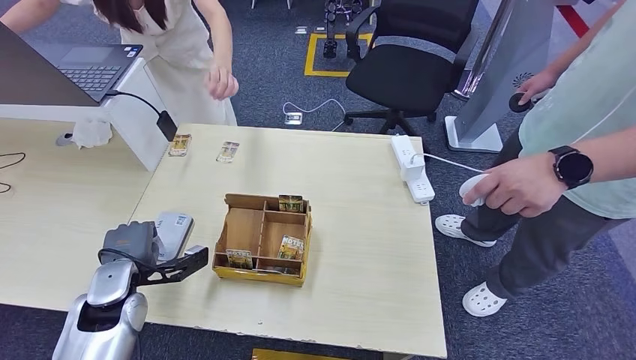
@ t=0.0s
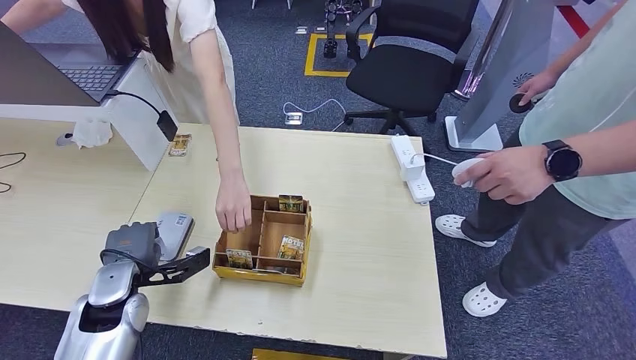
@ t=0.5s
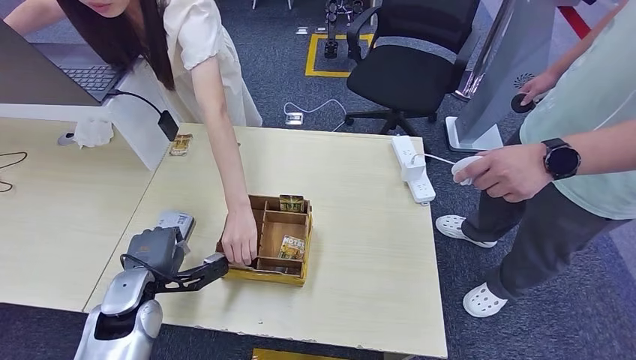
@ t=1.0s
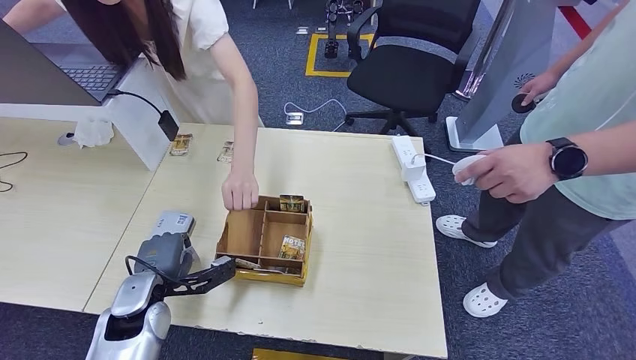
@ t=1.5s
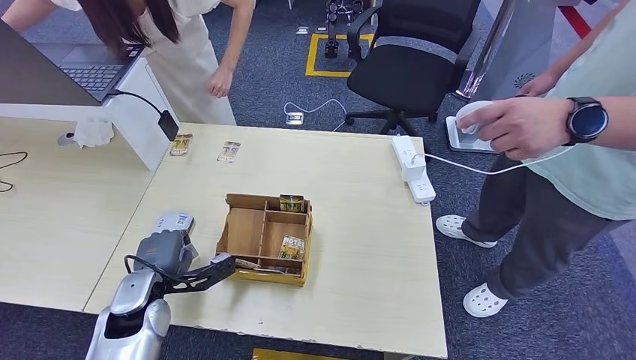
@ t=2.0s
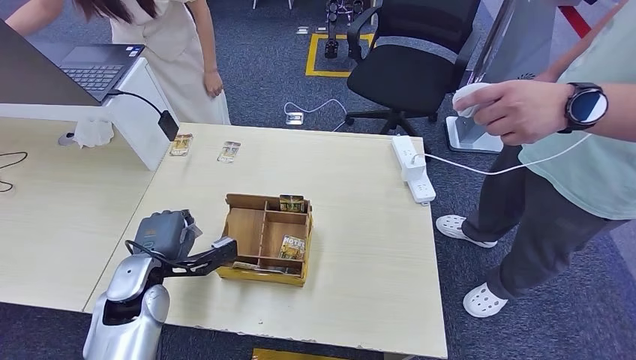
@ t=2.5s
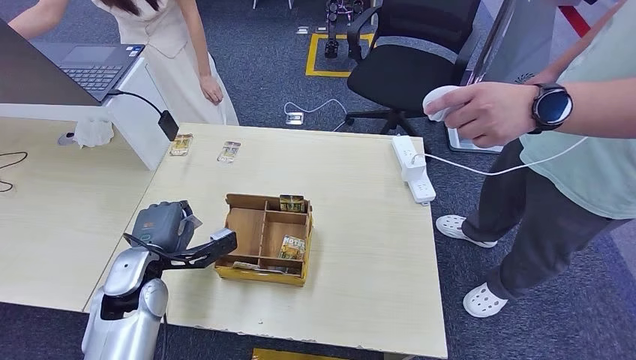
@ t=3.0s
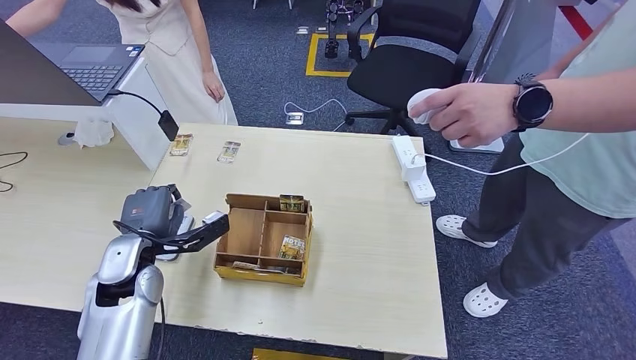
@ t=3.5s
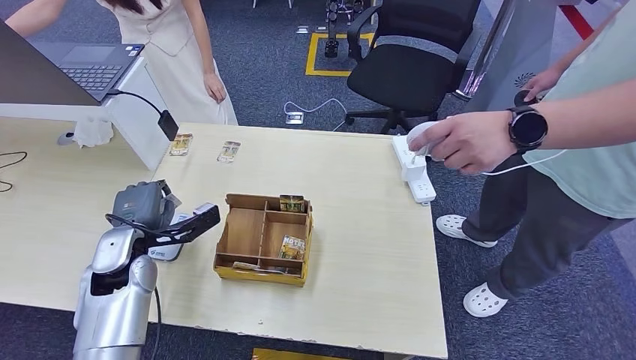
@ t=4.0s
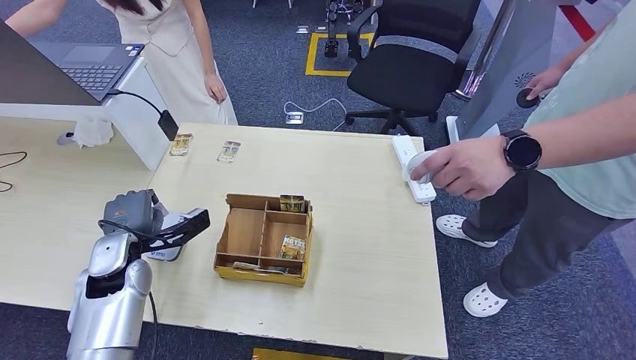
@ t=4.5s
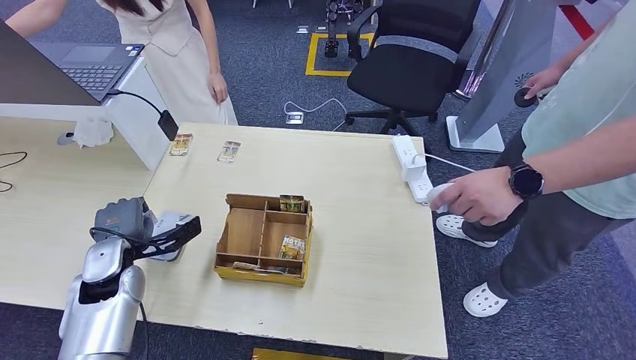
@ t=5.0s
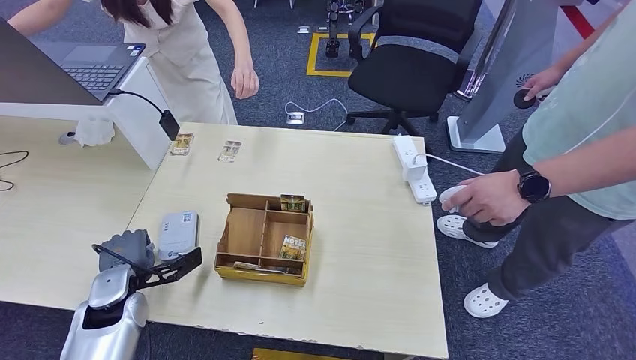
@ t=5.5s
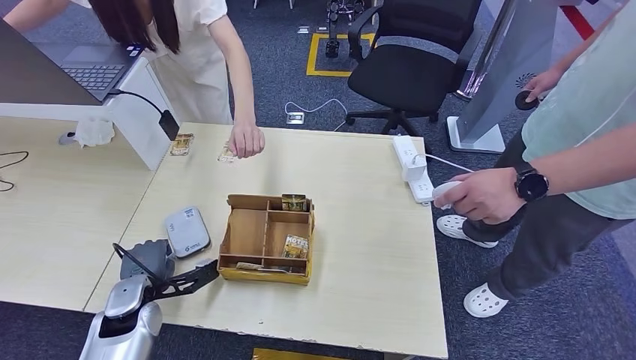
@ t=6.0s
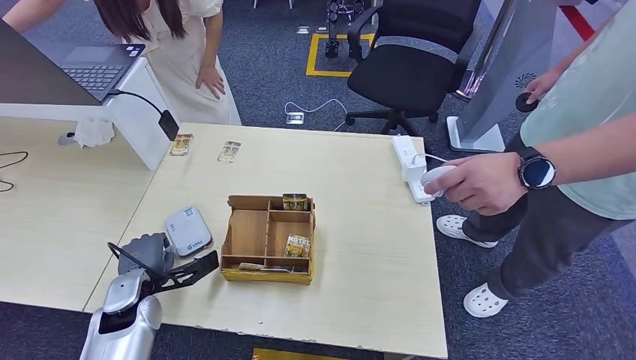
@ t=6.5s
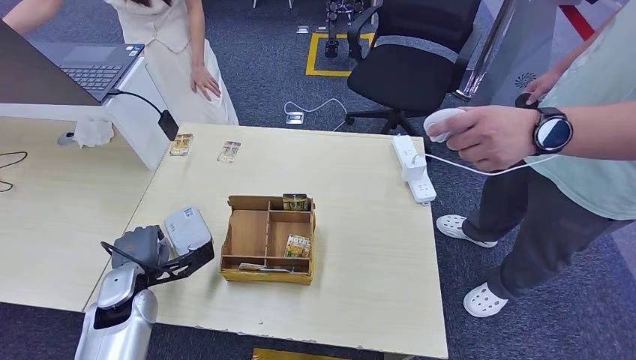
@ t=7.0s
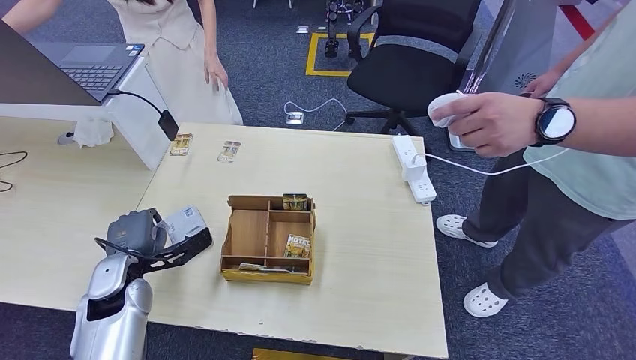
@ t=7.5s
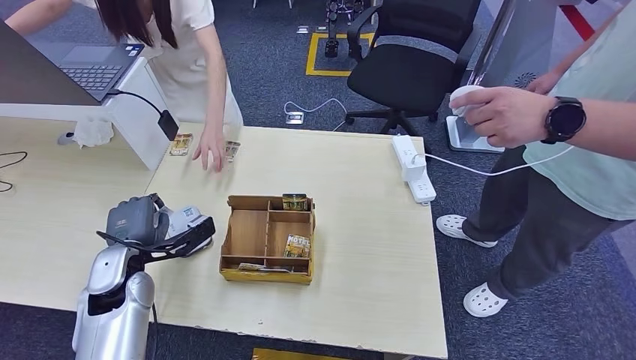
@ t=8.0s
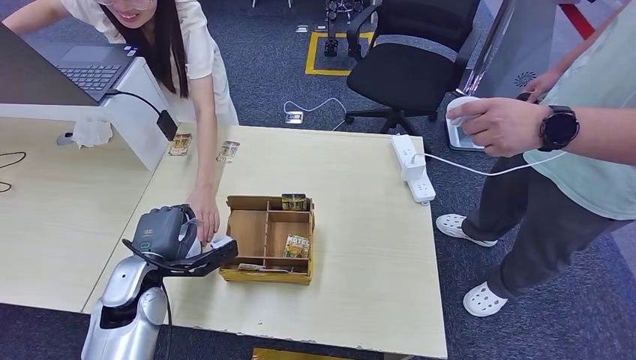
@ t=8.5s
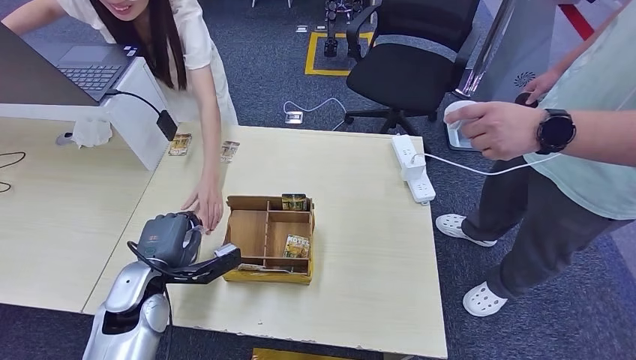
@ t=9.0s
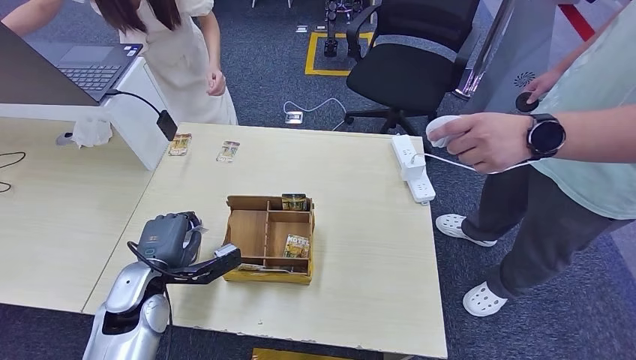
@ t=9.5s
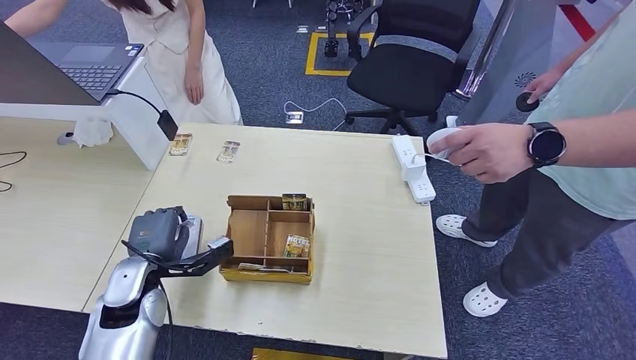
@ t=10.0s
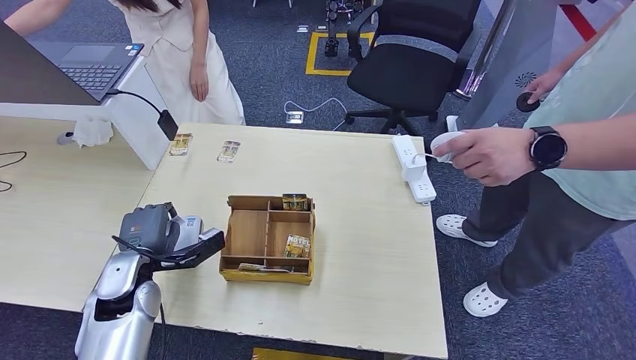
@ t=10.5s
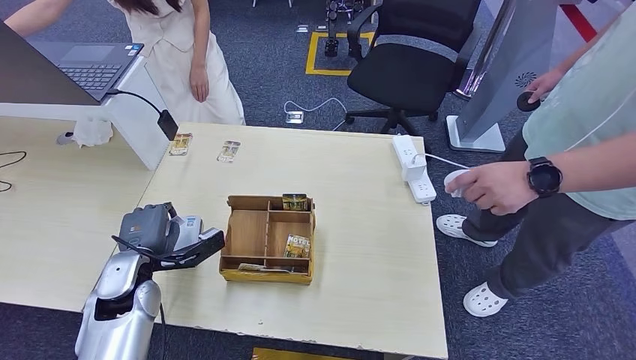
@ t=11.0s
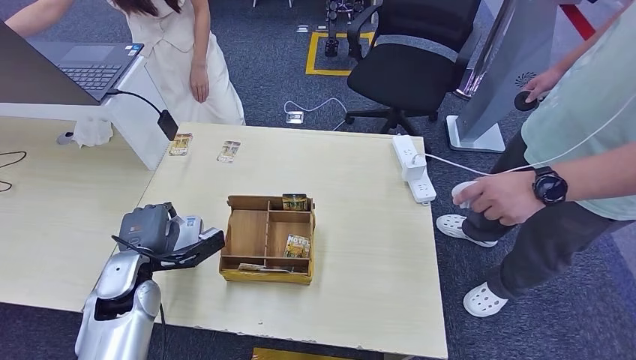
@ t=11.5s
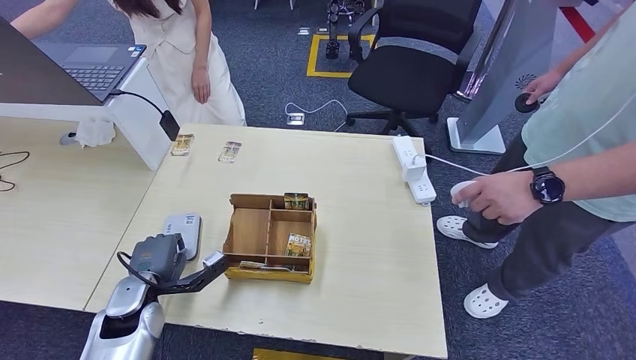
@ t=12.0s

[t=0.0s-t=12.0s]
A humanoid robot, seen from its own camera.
t=0.0s to t=2.0s: The hands make only small movements.
t=2.0s to t=4.0s: The left hand travels upward and forward by approximately 10 cm.
t=6.0s to t=8.0s: The left hand shifts roughly 5 cm upward.
t=8.0s to t=10.0s: The hands make only small movements.
t=10.0s to t=12.0s: The left hand shifts by about 5 cm.

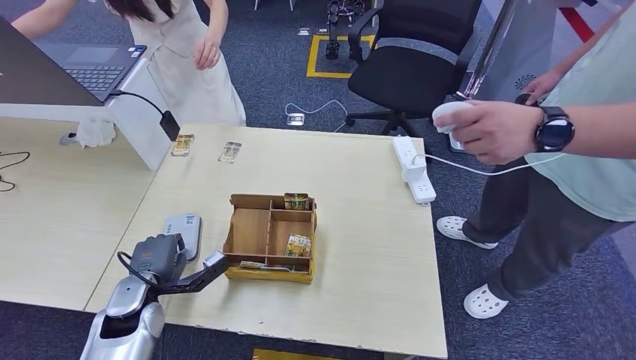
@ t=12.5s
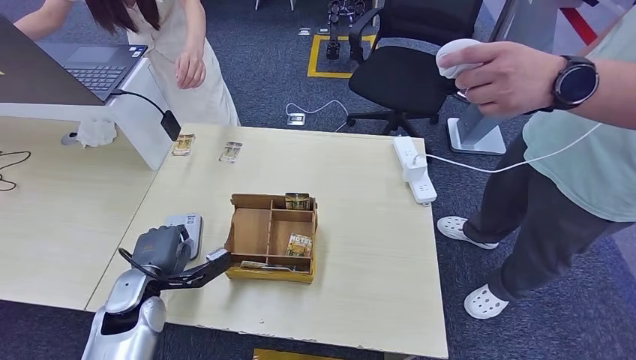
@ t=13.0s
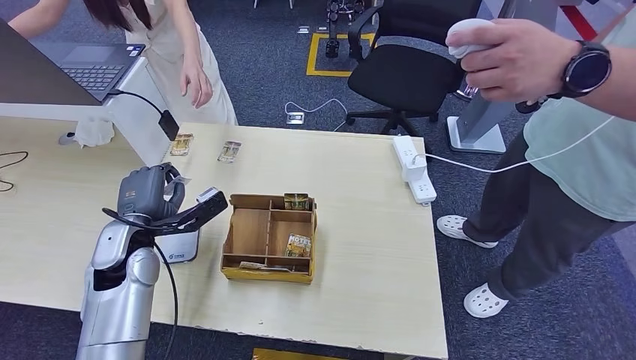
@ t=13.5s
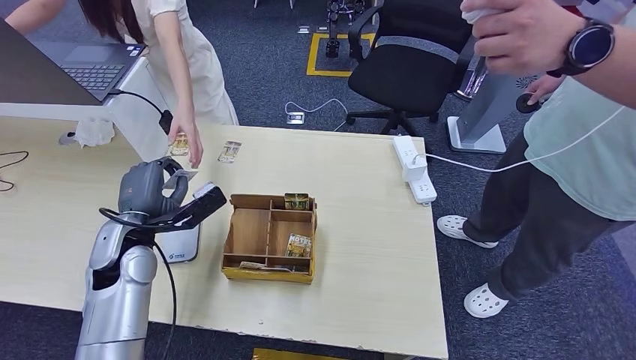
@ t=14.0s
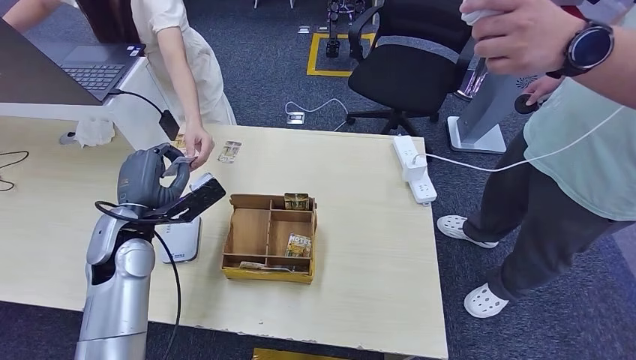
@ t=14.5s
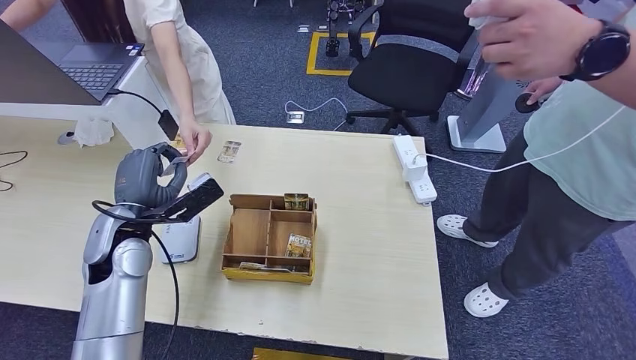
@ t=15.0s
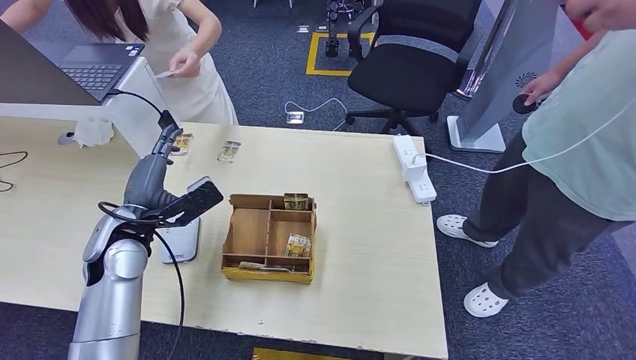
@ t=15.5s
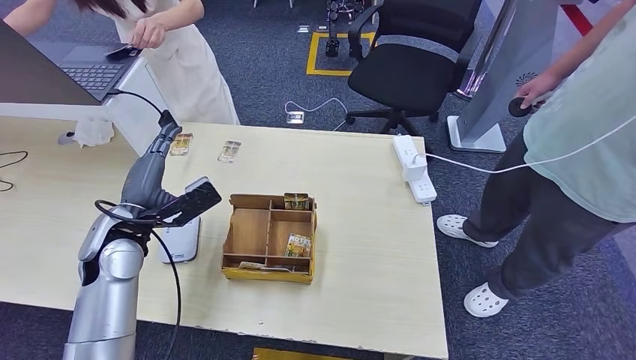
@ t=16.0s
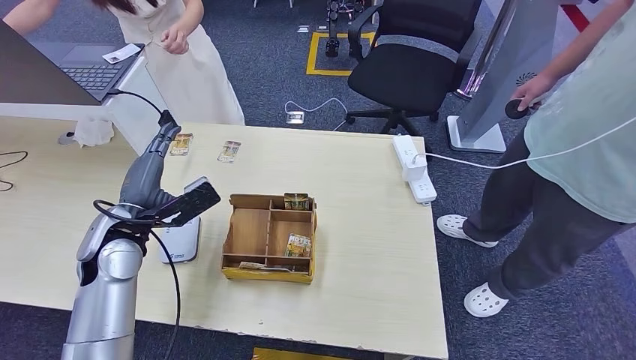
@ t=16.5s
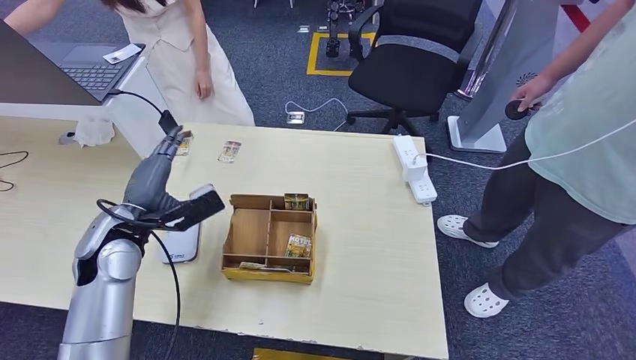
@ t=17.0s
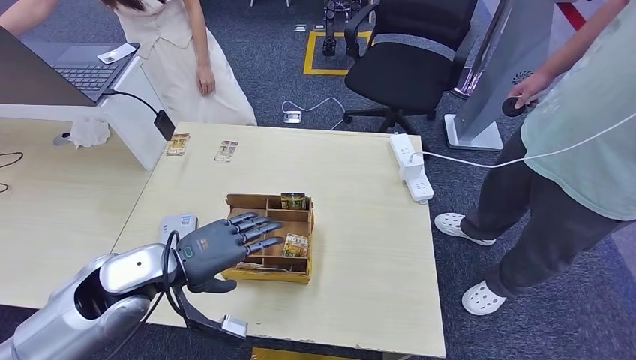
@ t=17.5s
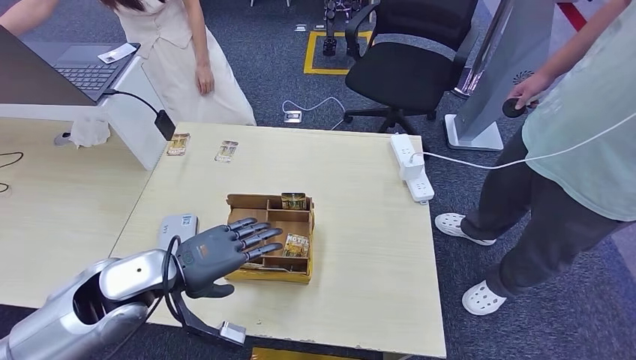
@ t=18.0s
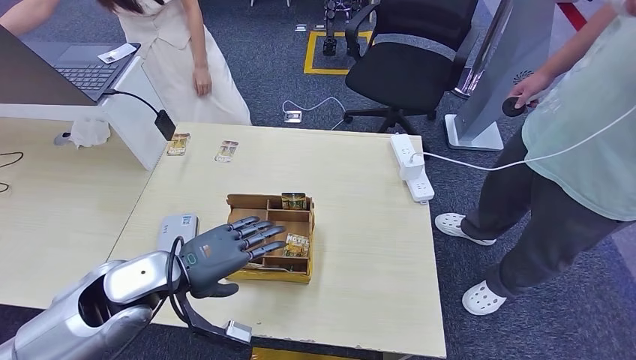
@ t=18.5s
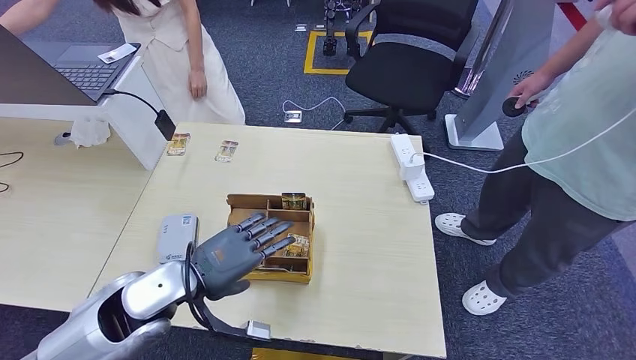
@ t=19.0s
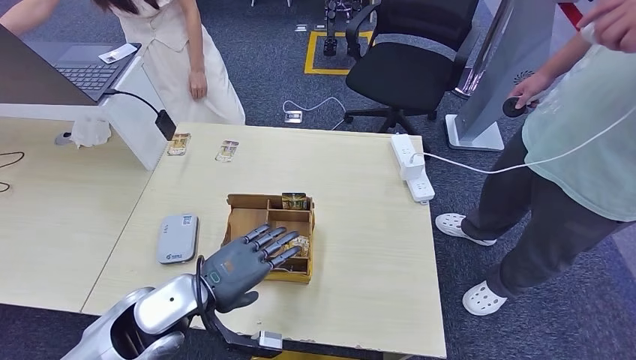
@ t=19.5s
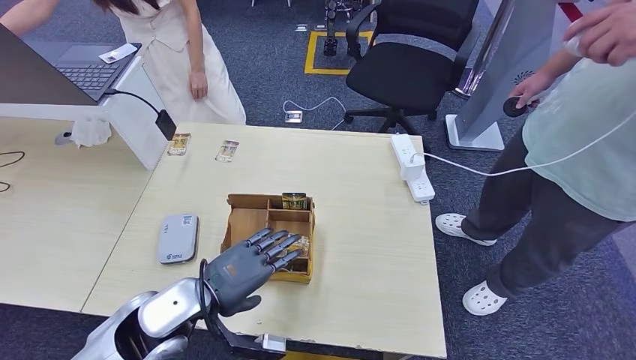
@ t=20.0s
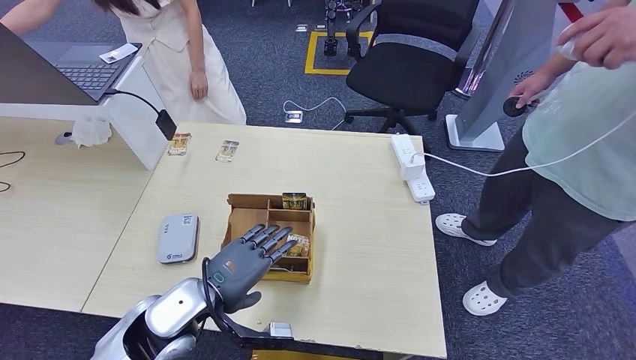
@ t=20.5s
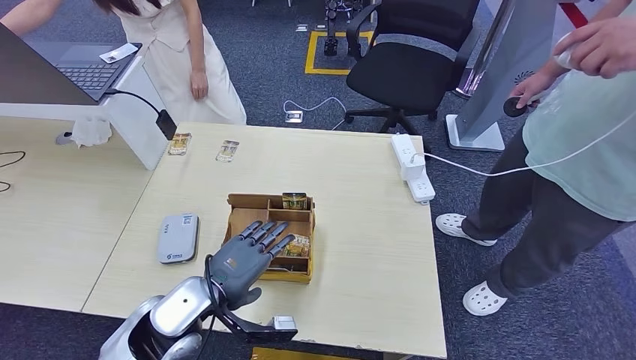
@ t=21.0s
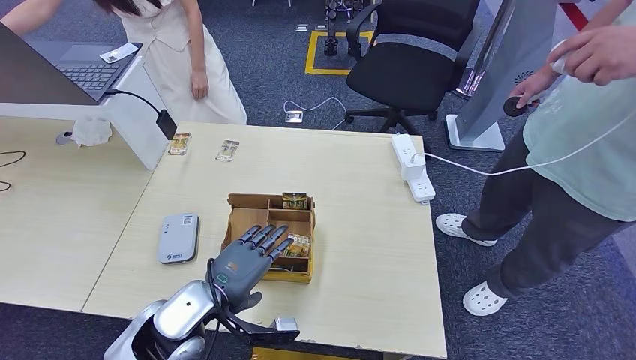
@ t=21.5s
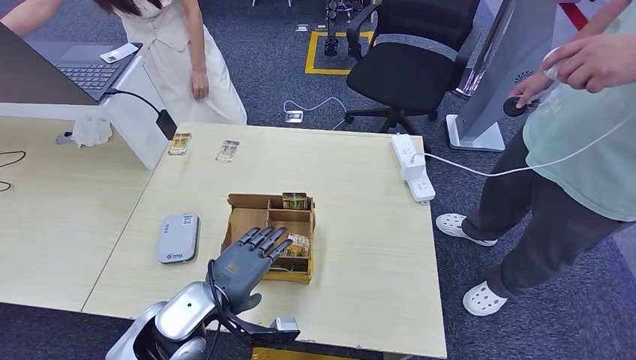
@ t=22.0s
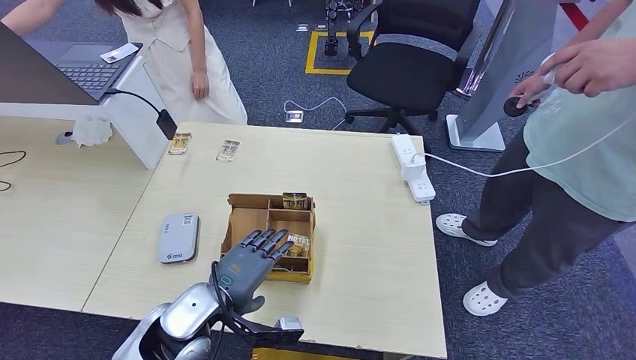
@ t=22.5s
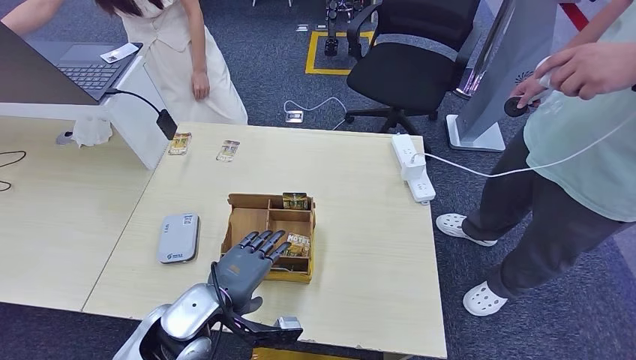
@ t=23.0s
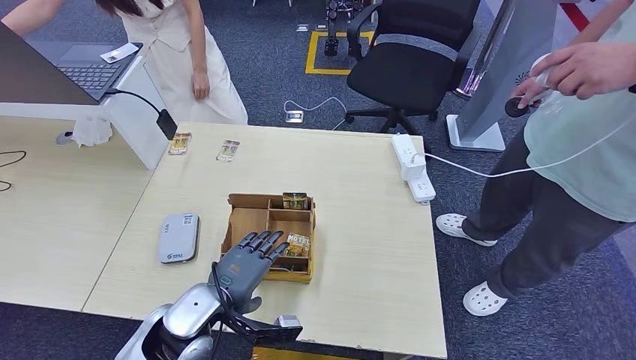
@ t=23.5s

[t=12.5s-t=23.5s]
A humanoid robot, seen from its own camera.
Step, t=13.5s to t=15.0s: Hand the ID card to the person.
t=14.5s to t=16.0s: The hands stay close to where they were, moving slightly.
t=18.0s to t=20.0s: The left hand shifts approximately 5 cm to the right.
t=20.0s to t=23.5s: The hands make only small movements.
